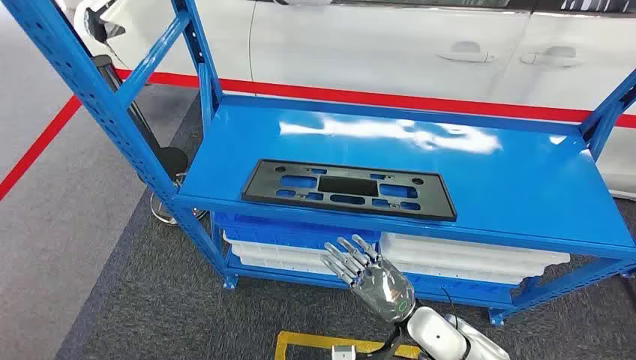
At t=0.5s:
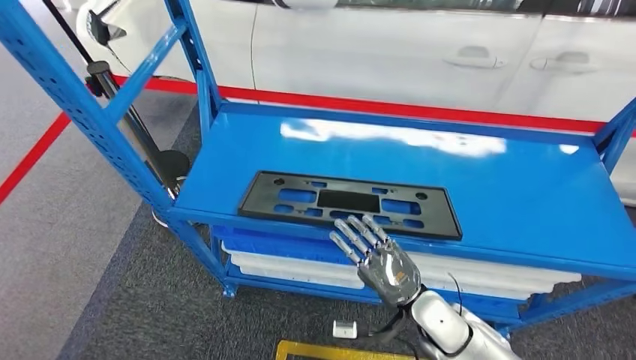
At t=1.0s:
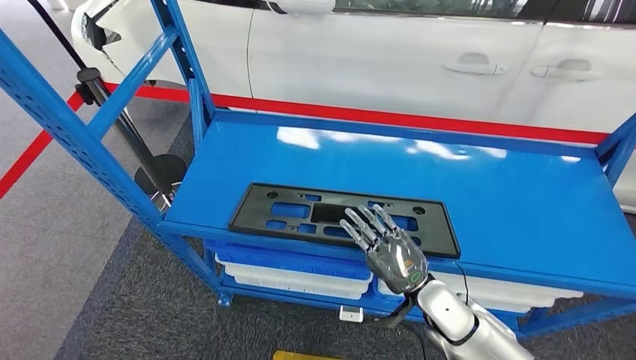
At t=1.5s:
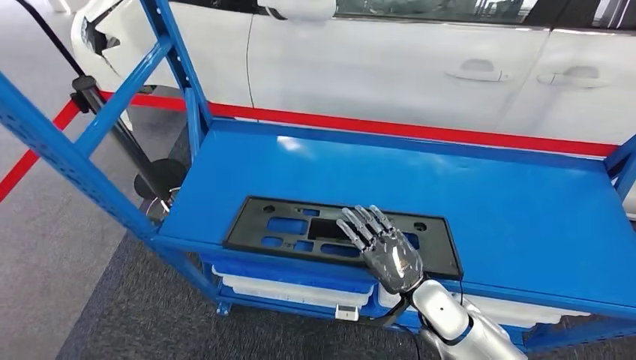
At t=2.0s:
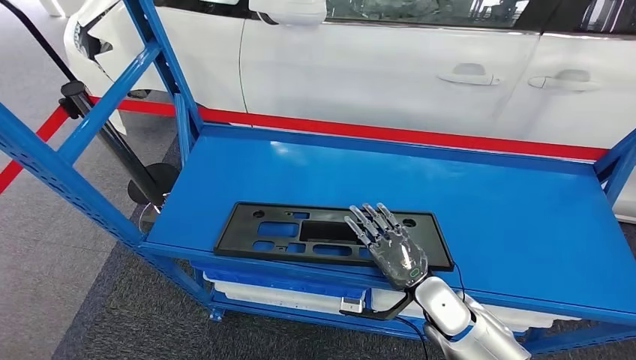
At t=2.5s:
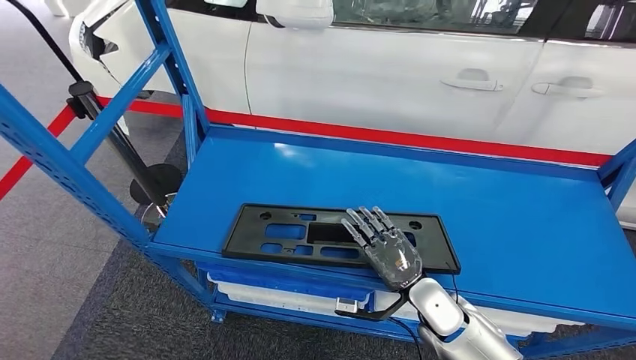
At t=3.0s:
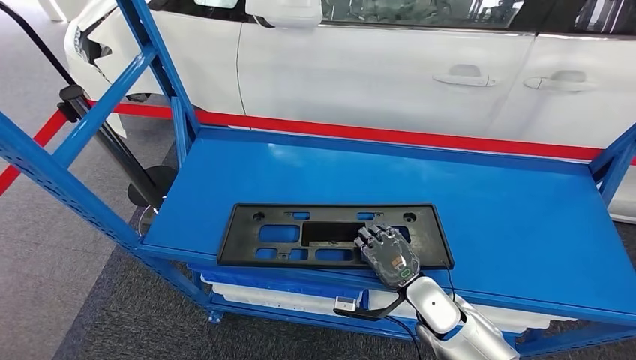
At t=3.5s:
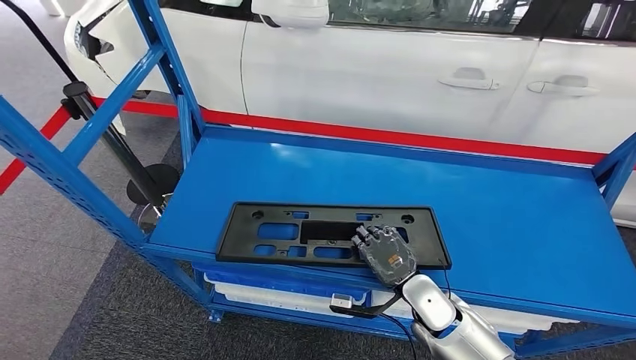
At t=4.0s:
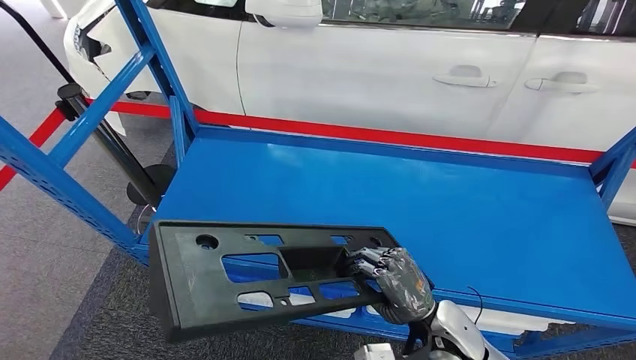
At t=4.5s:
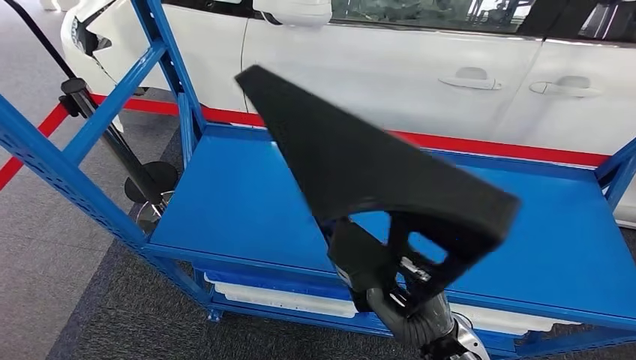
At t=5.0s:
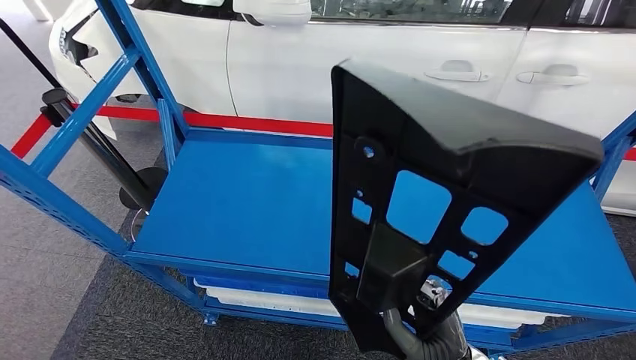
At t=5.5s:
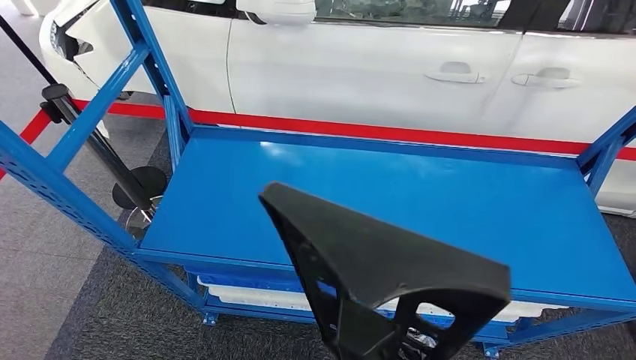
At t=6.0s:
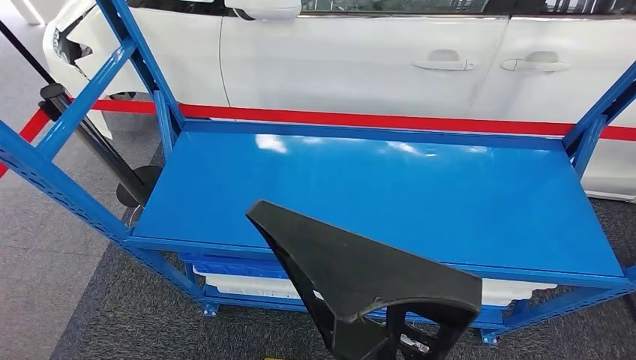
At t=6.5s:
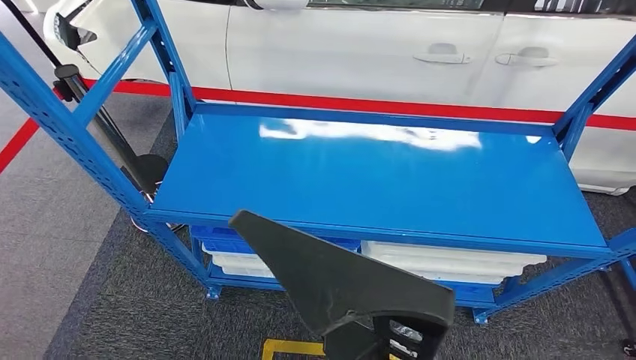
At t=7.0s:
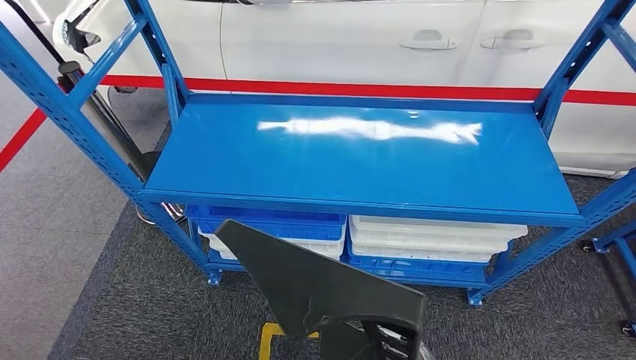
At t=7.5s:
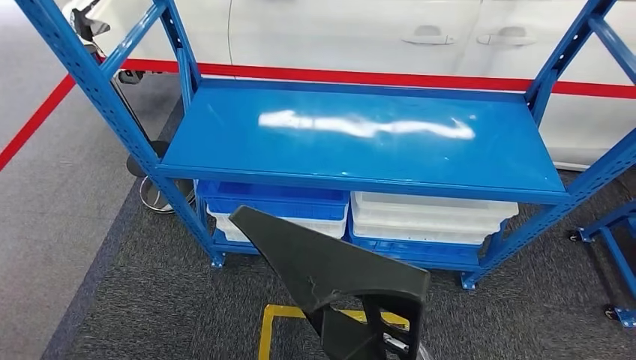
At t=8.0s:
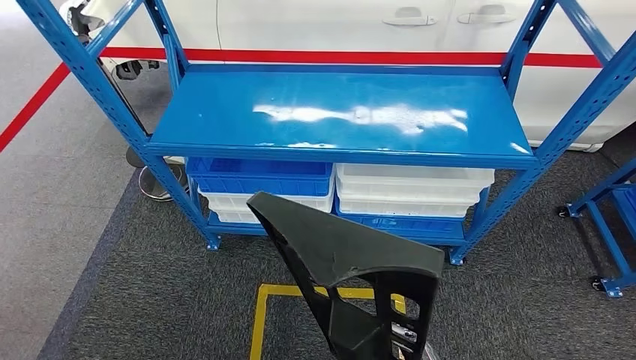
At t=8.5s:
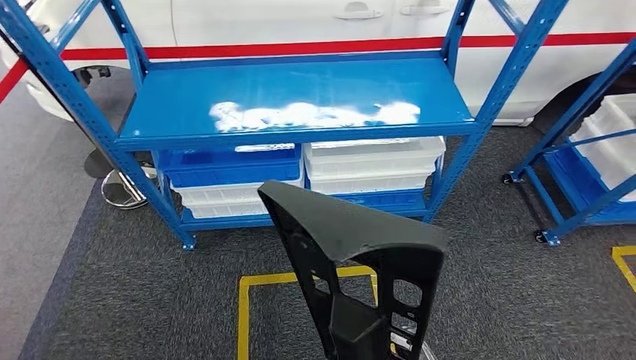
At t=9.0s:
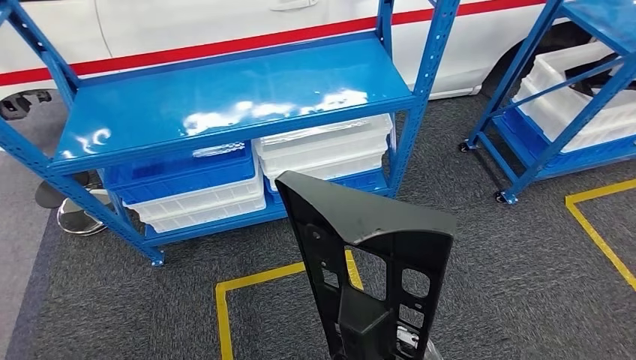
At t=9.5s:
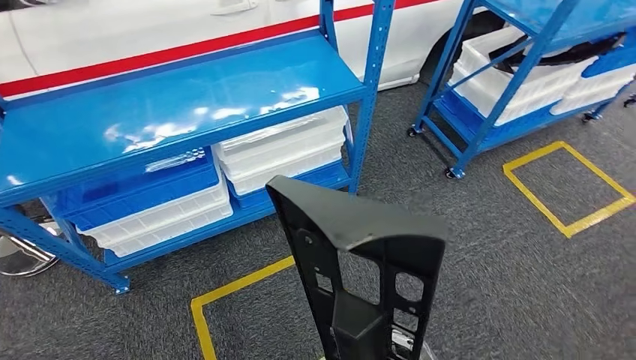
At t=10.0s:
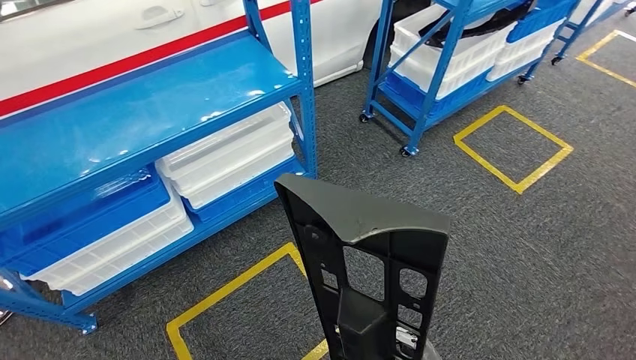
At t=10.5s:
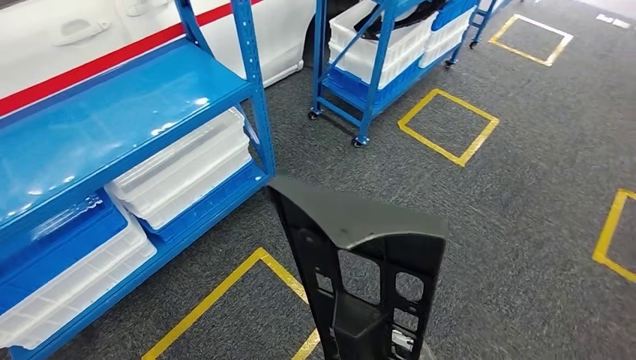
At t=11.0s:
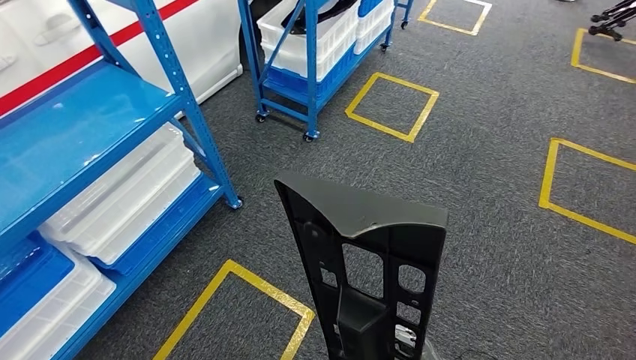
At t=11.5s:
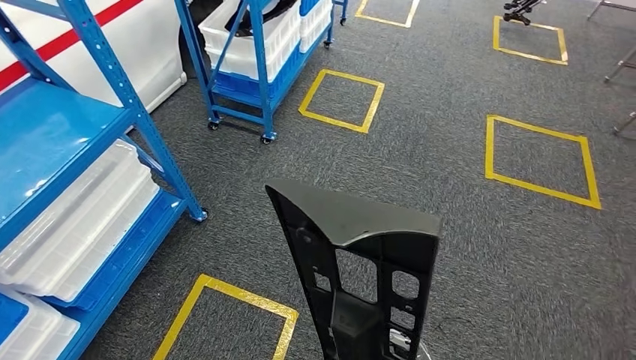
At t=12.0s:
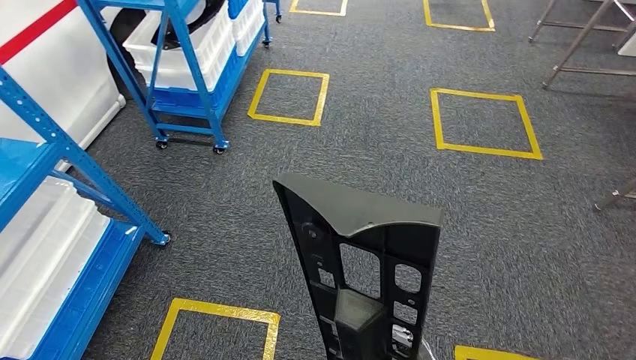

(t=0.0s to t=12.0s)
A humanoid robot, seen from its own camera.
Step, t=0.0s - t=6.5s: Pick up the large material from the shelf.

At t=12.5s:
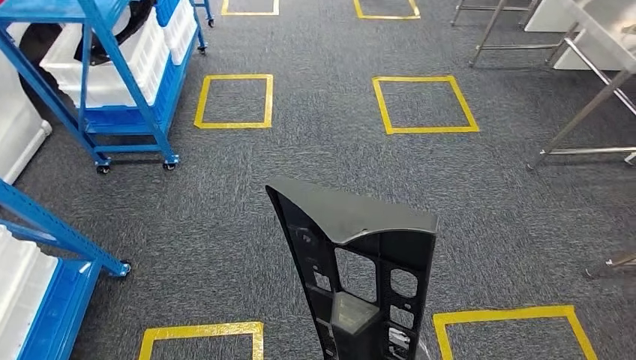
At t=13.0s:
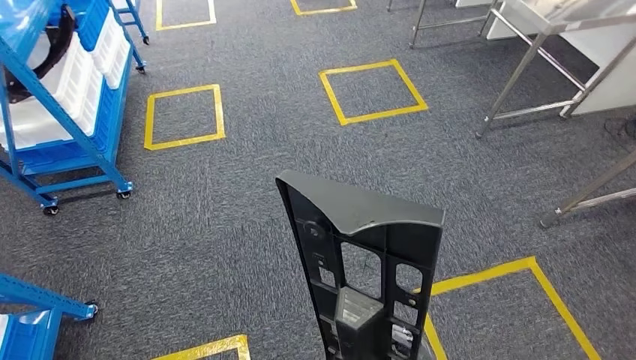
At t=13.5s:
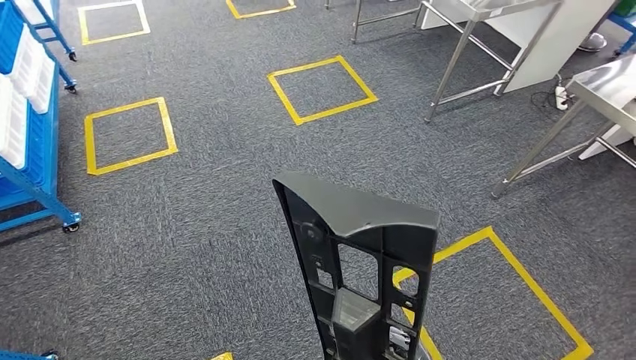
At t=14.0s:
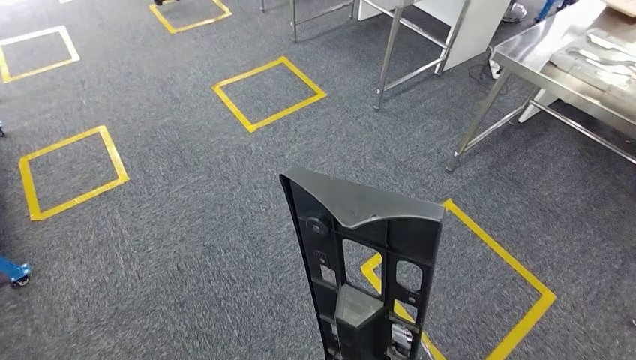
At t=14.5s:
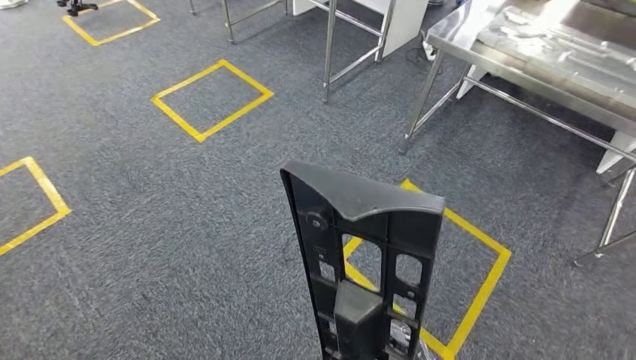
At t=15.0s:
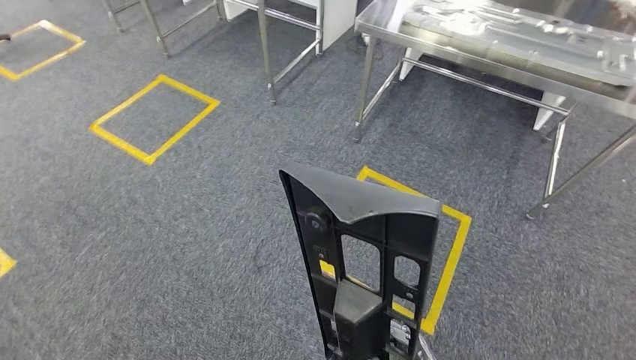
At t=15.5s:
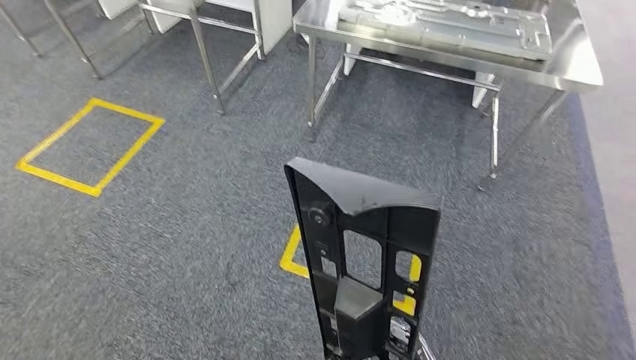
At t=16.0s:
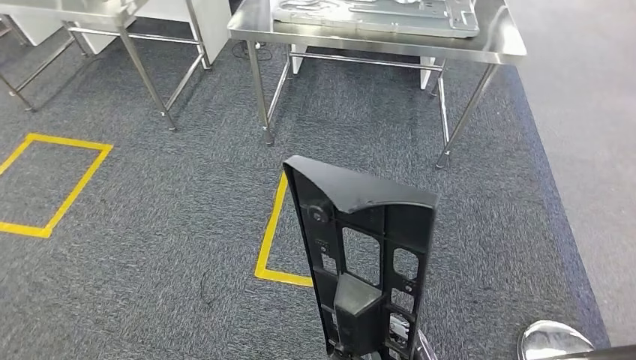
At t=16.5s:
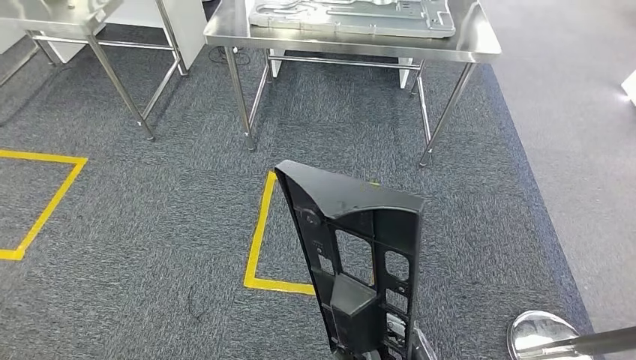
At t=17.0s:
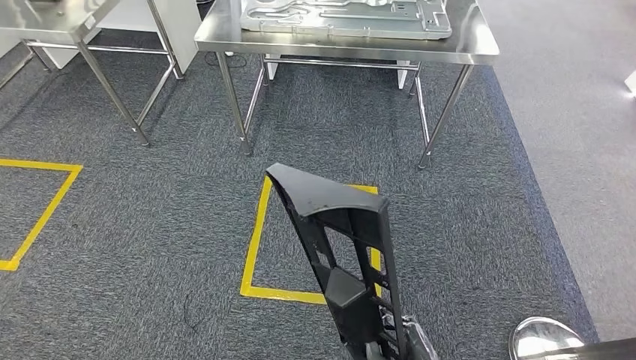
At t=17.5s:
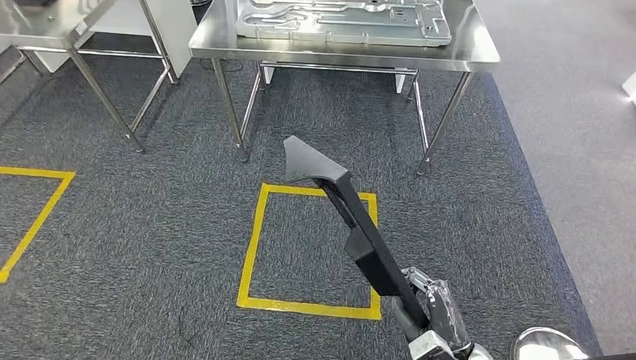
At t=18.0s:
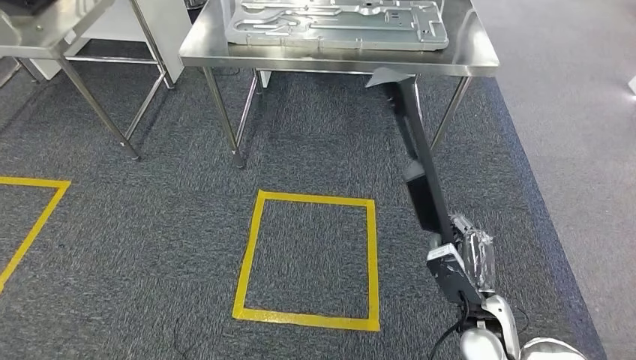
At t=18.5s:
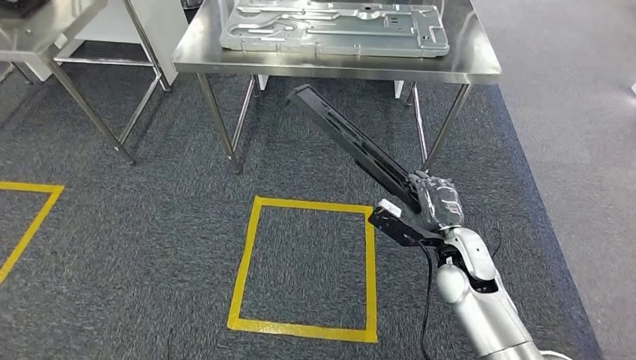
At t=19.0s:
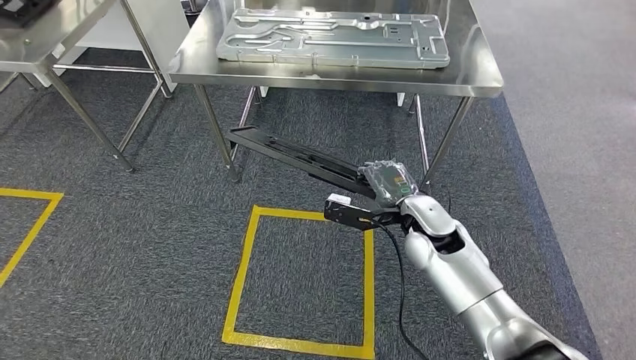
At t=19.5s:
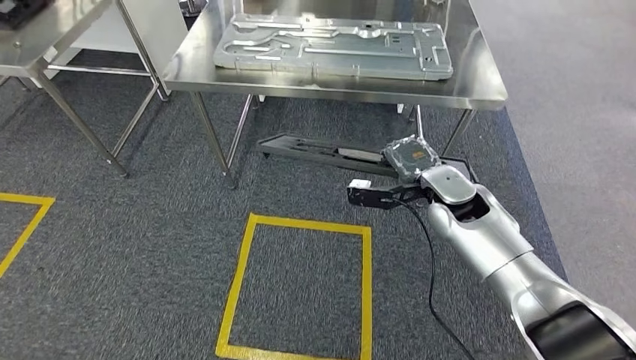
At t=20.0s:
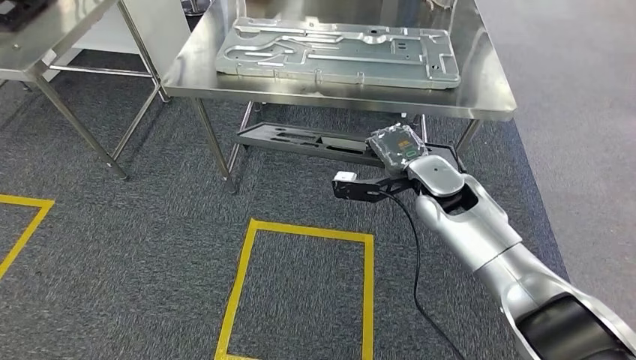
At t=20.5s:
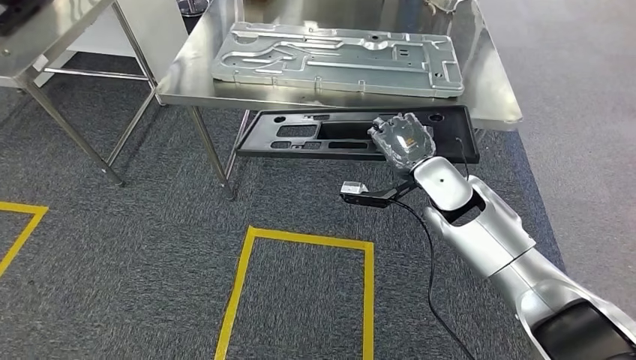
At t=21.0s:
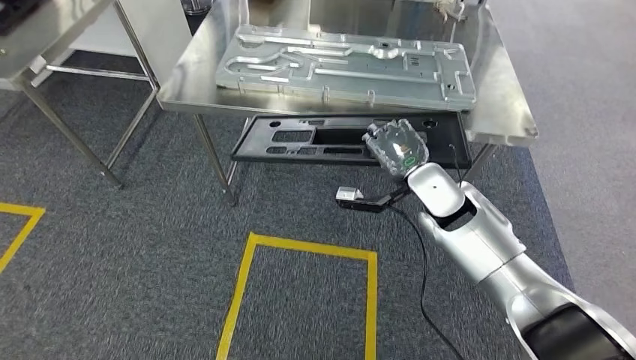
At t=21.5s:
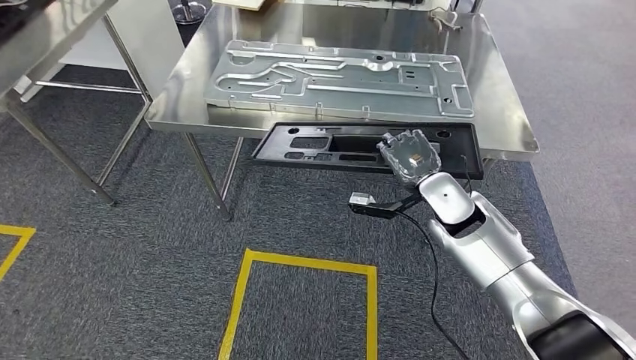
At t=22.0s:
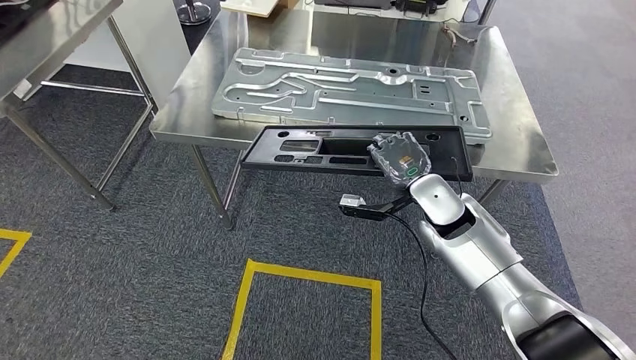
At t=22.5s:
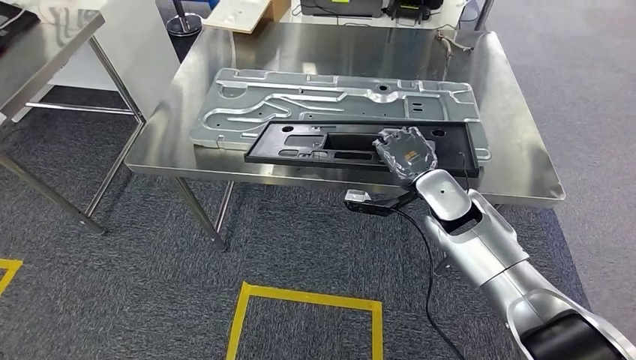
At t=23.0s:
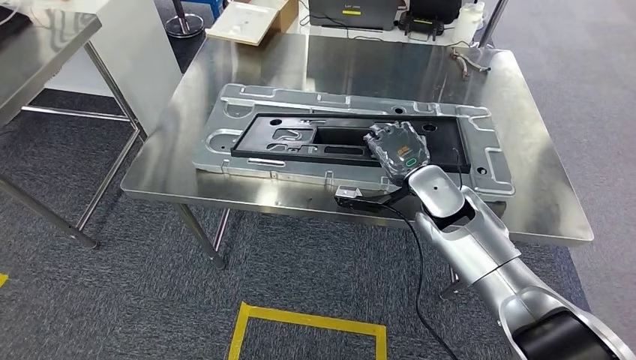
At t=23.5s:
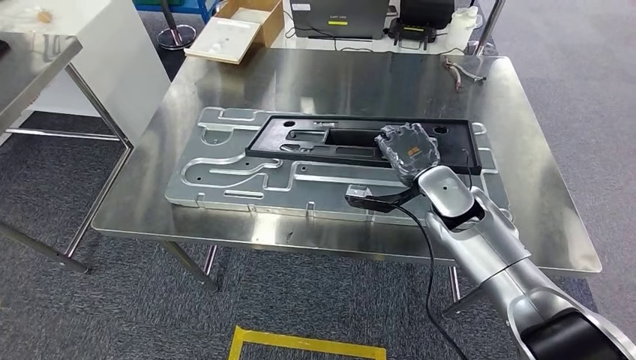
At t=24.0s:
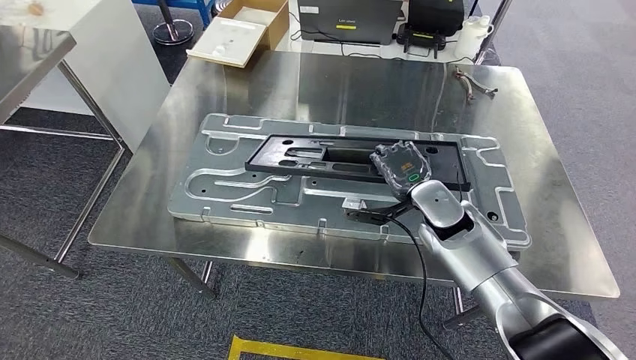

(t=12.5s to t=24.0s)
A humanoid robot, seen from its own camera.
Step, t=12.5s - t=18.5s: Move the large material to the workbench.
